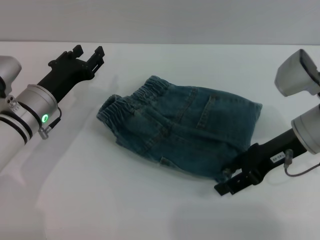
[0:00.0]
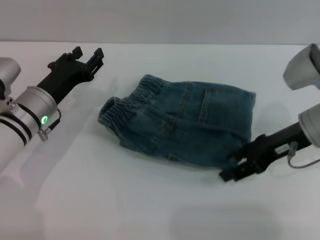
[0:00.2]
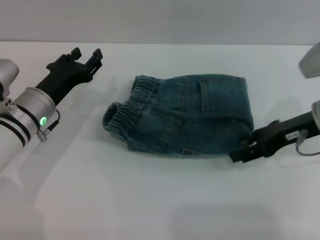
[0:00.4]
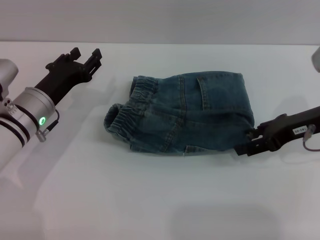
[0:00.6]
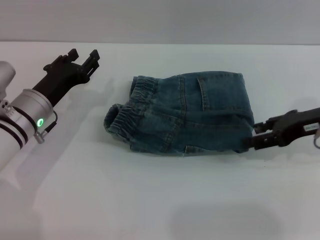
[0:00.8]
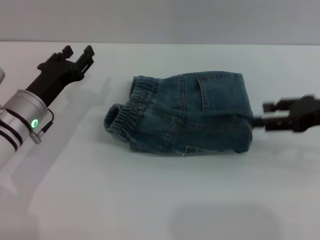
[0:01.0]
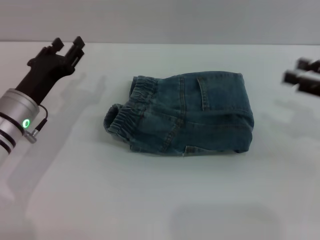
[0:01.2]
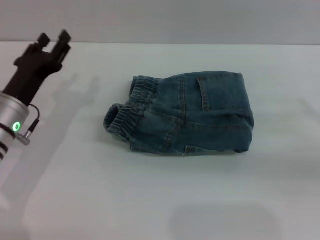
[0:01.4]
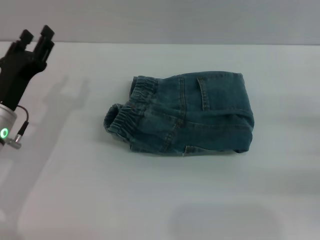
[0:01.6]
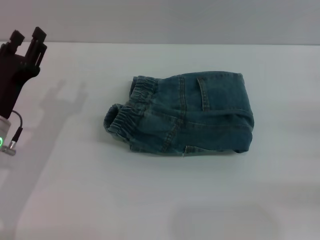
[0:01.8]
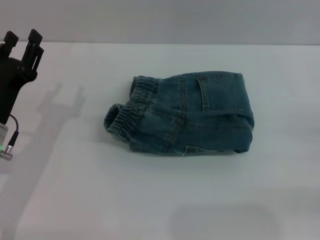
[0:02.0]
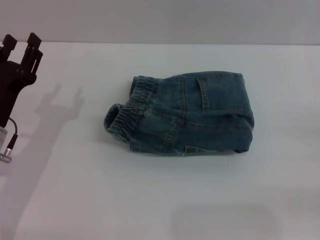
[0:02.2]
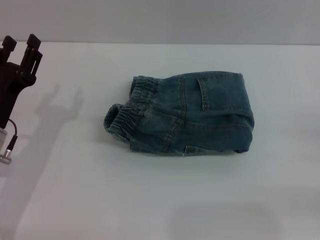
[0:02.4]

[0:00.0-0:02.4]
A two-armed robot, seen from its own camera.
0:00.0 to 0:01.2: The right gripper moves to the right, some 10 cm.
0:01.2 to 0:02.4: The left gripper goes about 5 cm backward, while the right gripper goes approximately 15 cm downward, to the right and backward.
